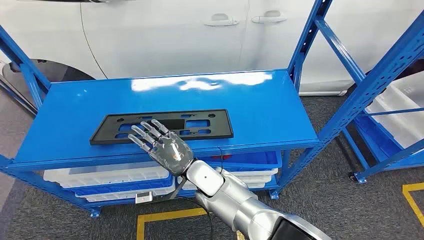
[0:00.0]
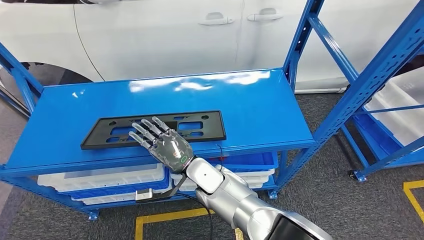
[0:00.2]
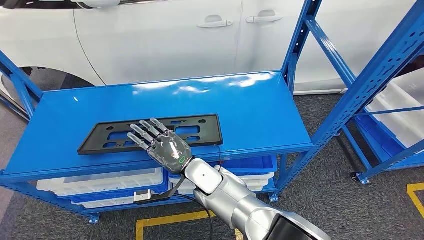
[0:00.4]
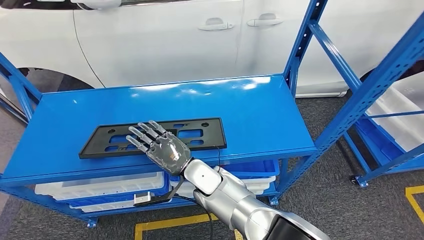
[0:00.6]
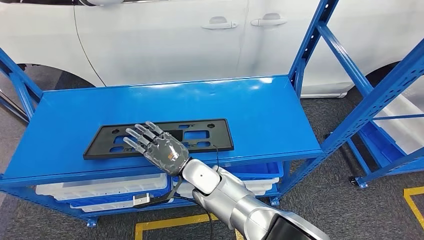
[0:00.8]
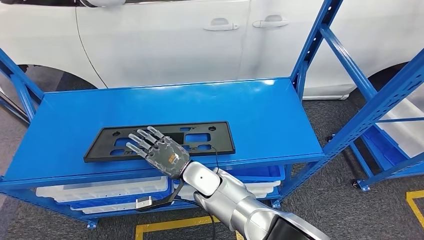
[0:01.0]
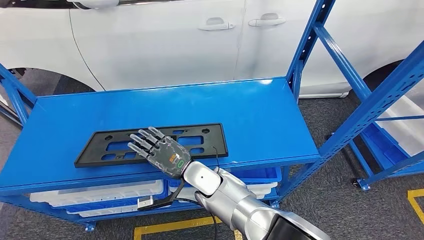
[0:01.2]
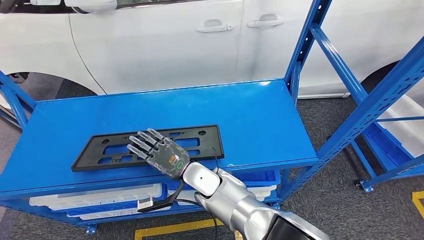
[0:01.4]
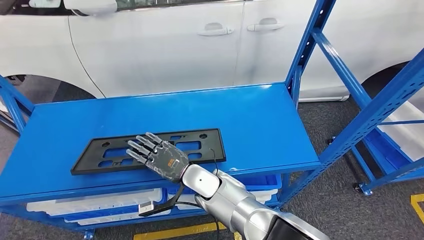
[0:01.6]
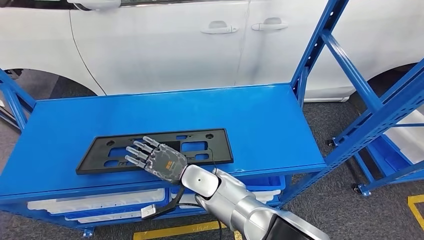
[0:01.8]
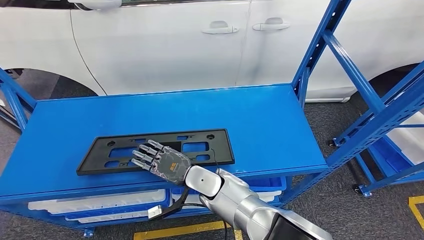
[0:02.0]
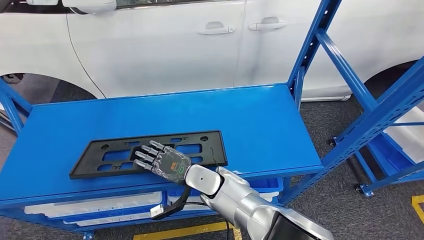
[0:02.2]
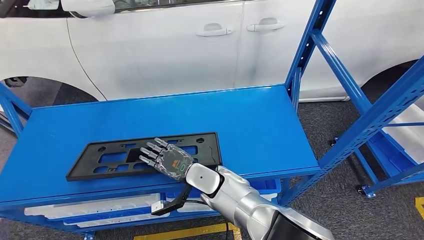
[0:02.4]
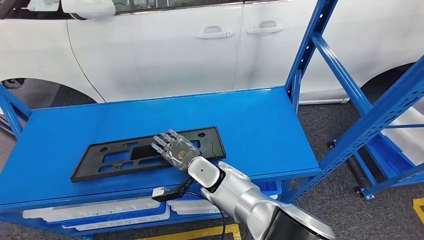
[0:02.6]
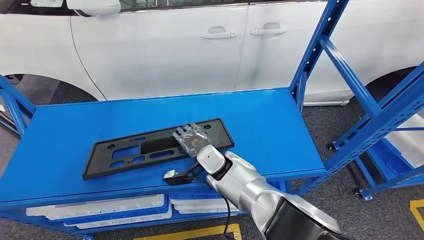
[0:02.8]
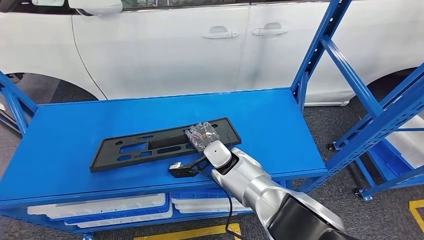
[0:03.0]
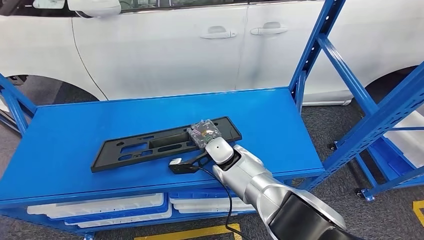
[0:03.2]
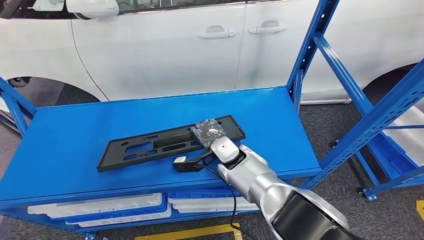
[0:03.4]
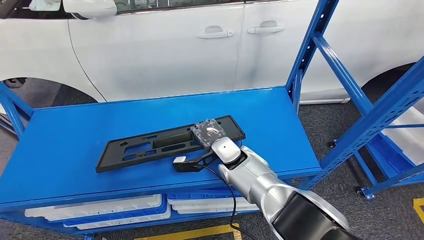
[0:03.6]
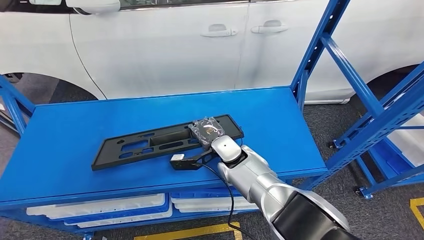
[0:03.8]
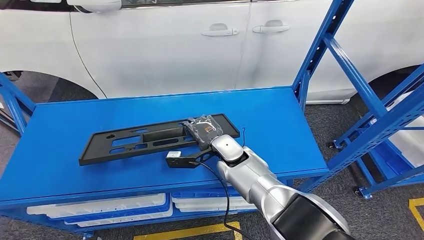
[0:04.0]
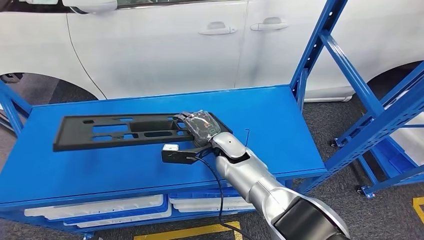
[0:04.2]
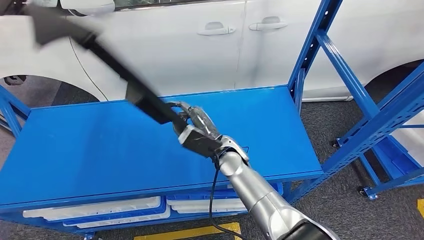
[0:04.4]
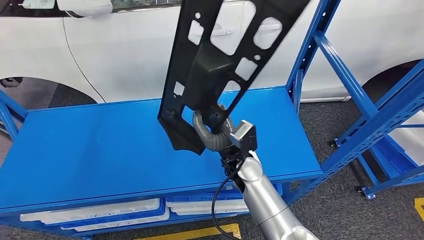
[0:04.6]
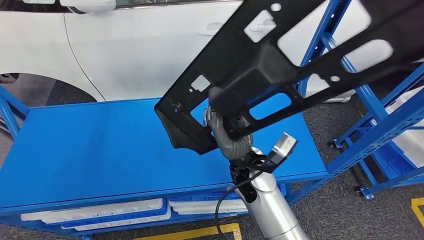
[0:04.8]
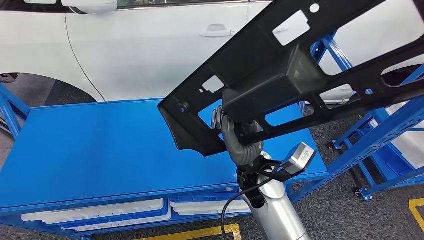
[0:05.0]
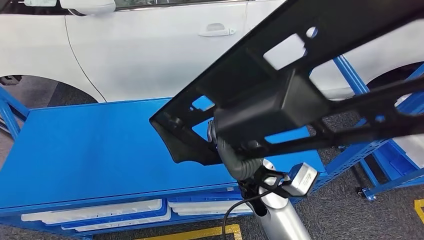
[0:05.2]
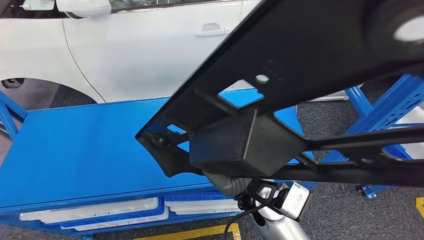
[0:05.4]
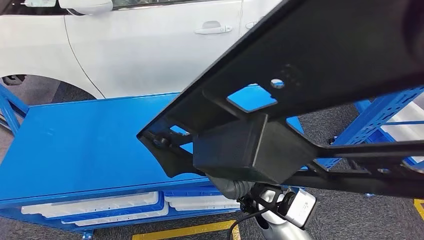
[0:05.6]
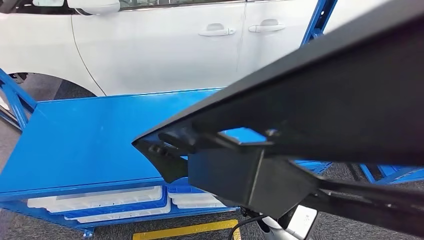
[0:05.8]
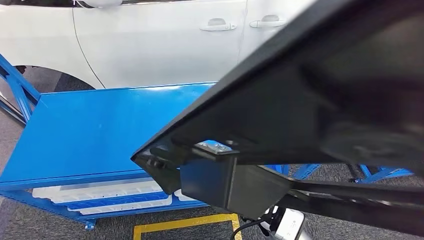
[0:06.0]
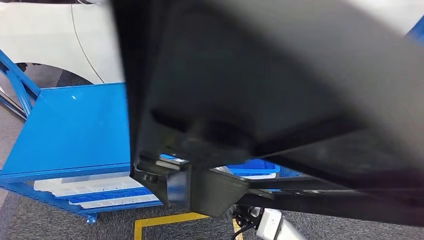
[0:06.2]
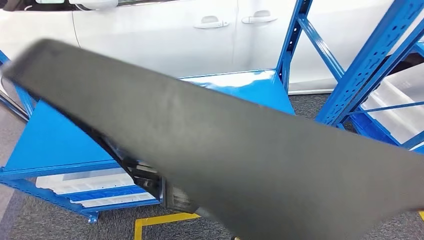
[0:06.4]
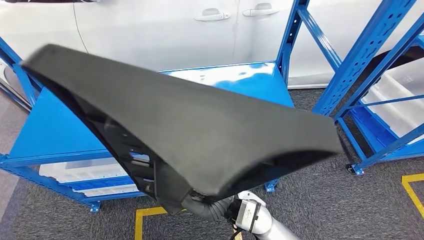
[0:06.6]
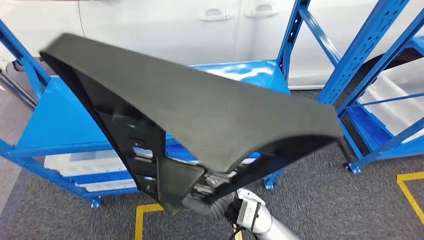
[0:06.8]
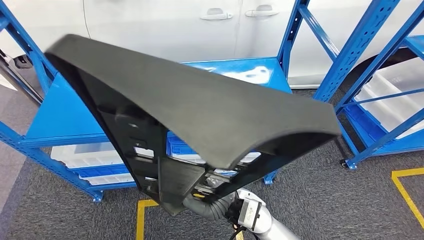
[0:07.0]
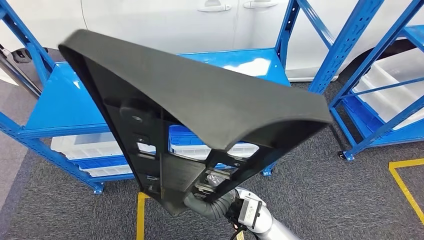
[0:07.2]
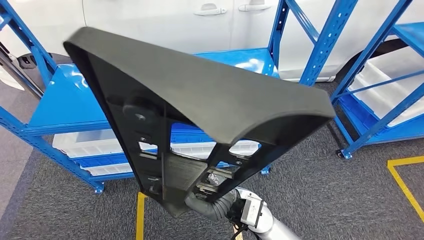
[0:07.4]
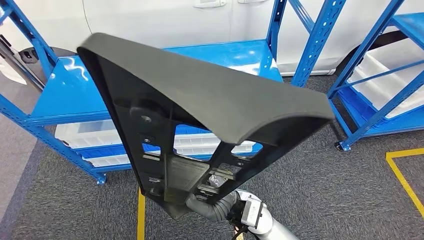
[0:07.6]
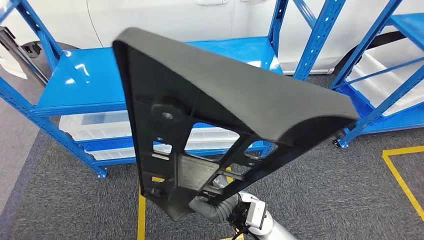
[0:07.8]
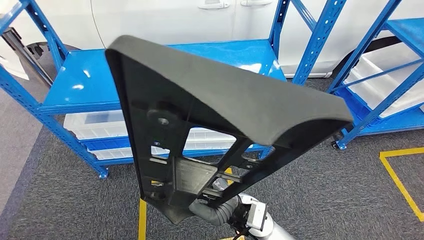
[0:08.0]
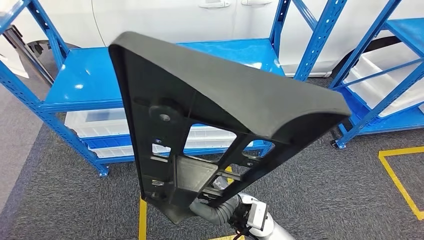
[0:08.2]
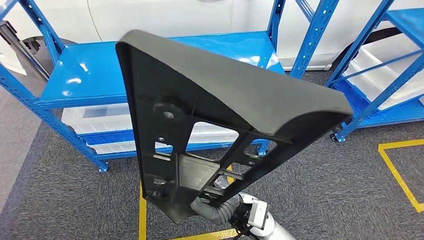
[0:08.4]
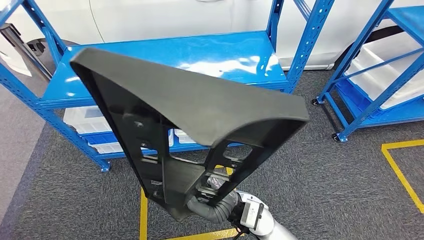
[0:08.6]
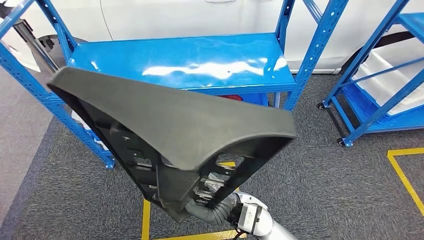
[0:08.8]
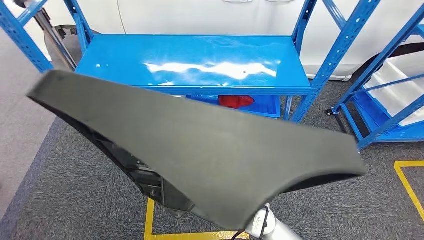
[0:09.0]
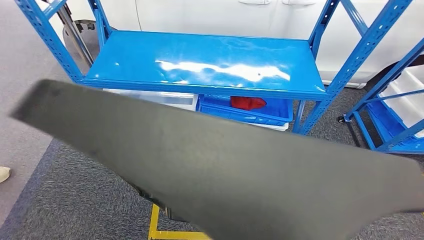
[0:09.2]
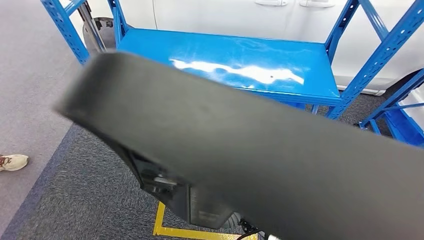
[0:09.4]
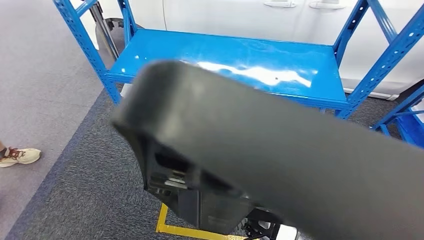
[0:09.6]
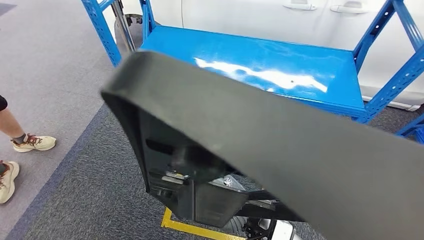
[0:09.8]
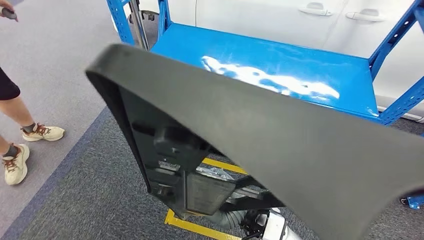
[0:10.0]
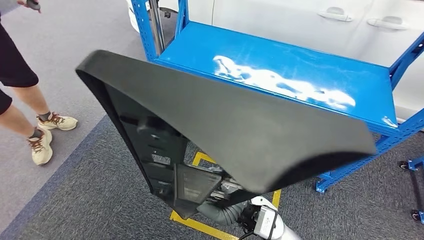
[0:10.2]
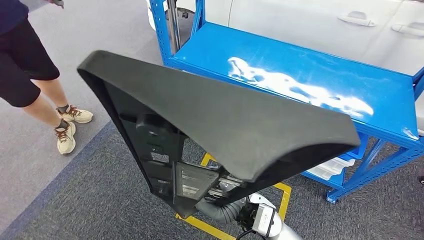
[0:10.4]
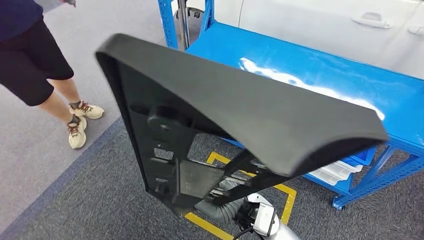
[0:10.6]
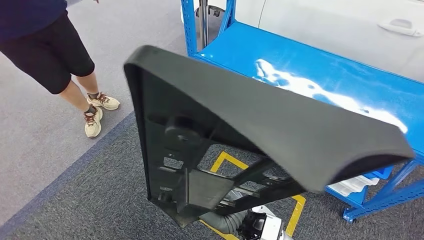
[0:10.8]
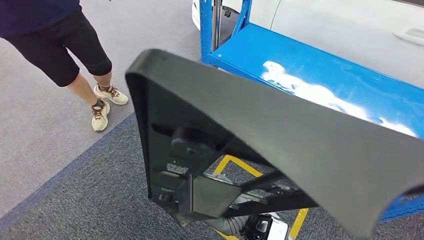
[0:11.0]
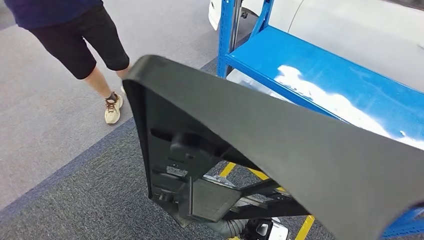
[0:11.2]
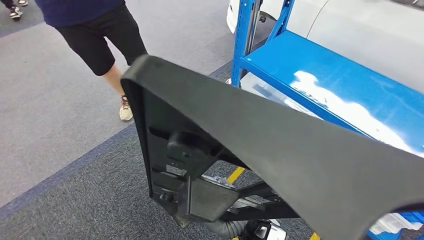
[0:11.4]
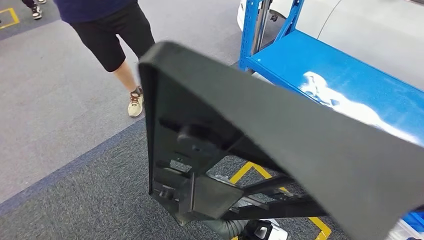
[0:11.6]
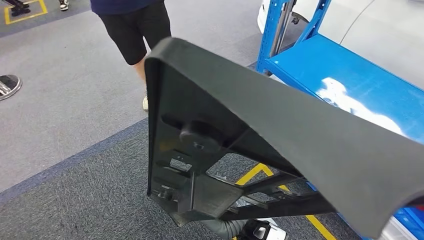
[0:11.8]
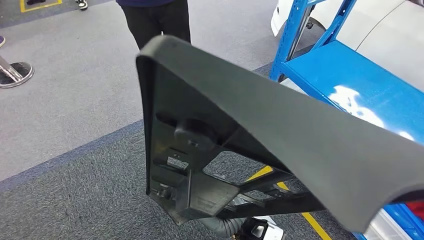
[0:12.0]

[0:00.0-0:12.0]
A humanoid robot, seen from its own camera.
Step, 0:00.0 to 0:05.6: Pick up the large material from the shelf.

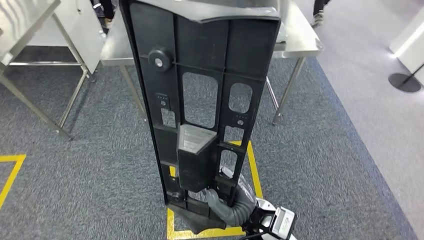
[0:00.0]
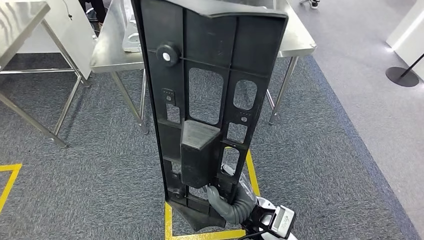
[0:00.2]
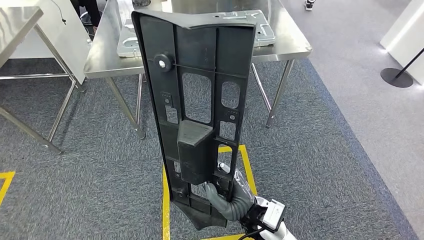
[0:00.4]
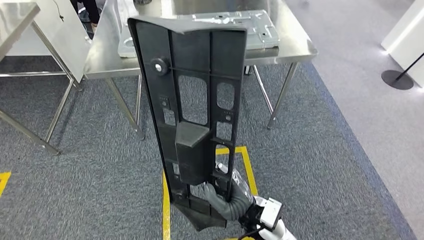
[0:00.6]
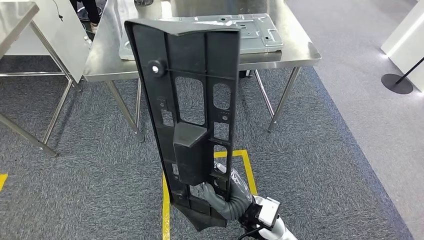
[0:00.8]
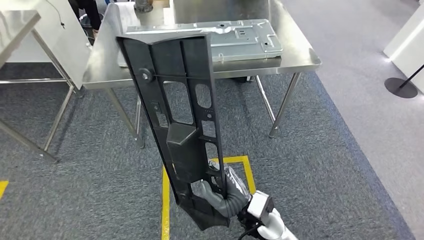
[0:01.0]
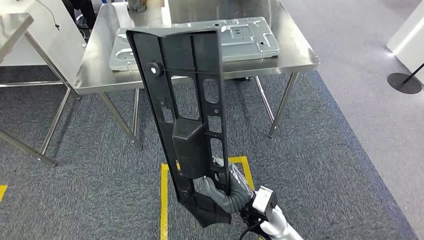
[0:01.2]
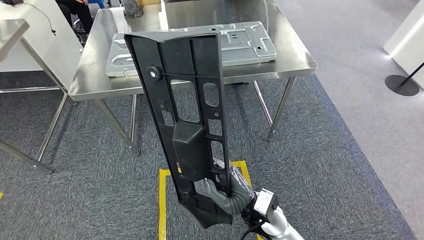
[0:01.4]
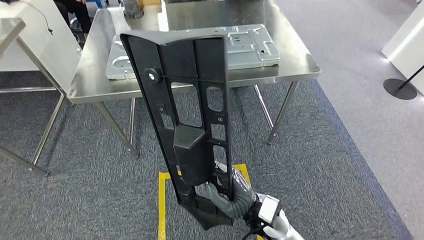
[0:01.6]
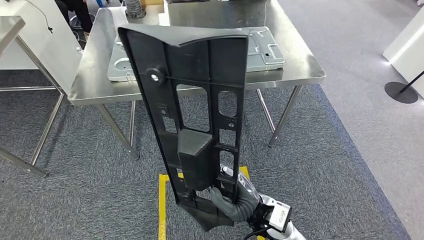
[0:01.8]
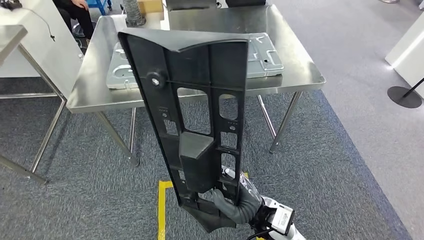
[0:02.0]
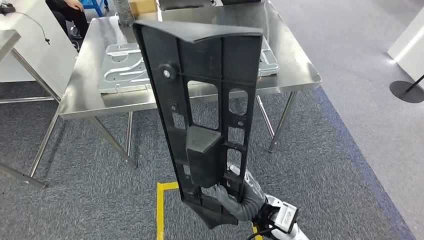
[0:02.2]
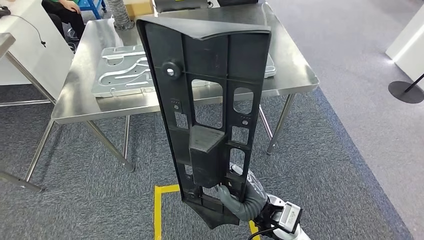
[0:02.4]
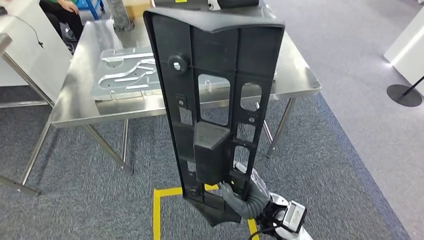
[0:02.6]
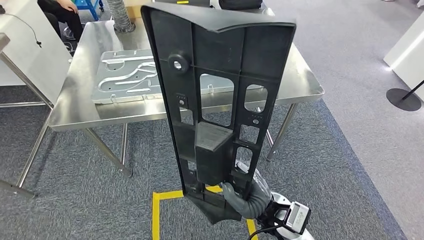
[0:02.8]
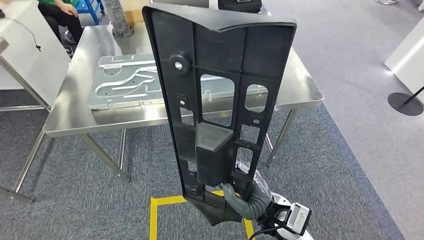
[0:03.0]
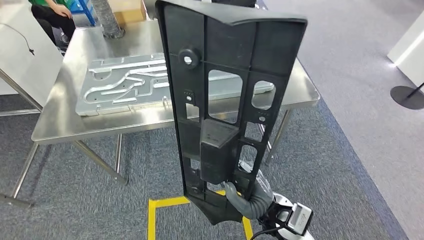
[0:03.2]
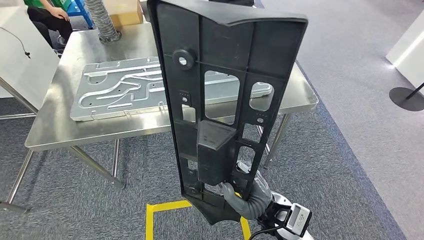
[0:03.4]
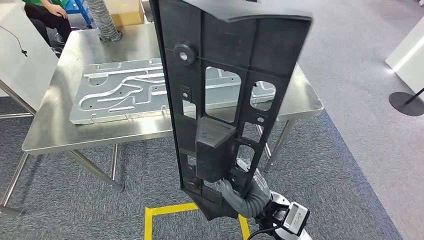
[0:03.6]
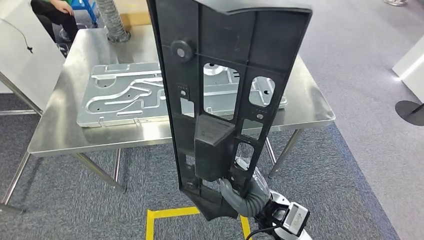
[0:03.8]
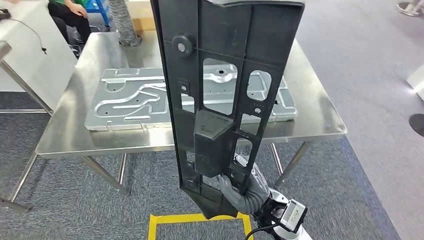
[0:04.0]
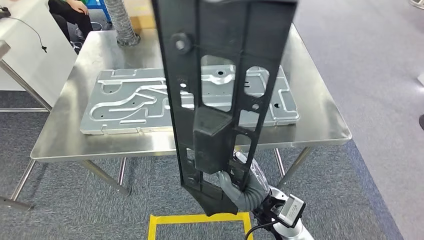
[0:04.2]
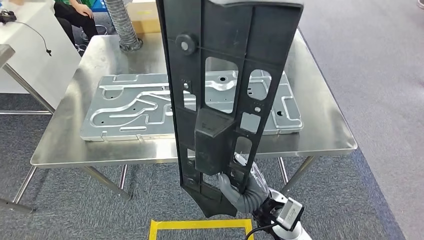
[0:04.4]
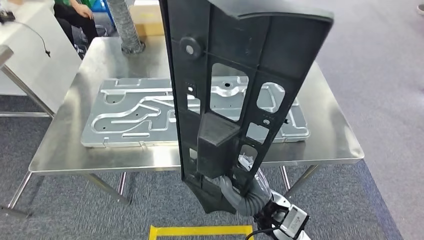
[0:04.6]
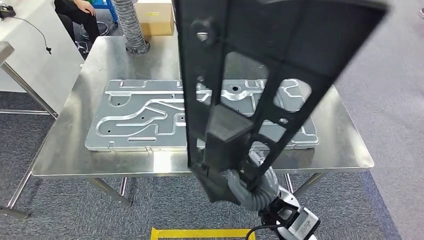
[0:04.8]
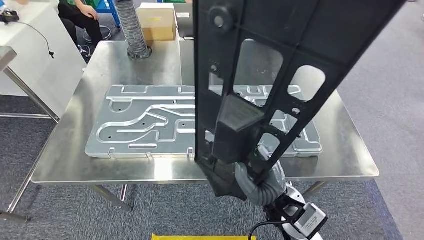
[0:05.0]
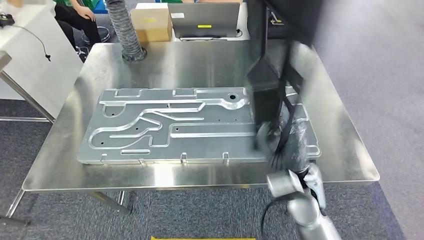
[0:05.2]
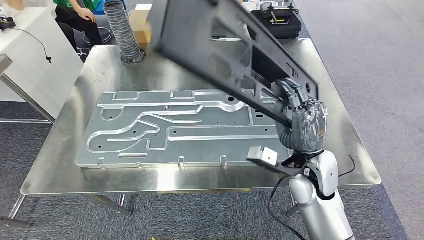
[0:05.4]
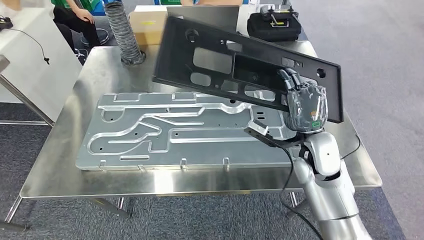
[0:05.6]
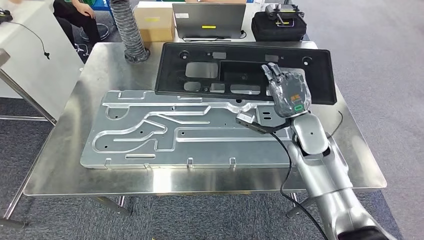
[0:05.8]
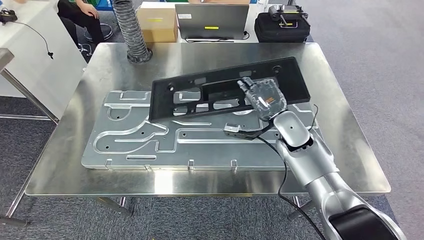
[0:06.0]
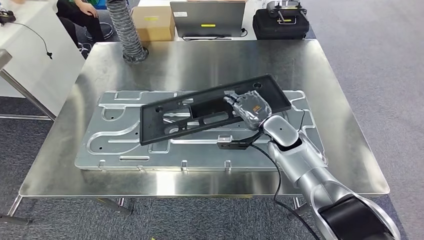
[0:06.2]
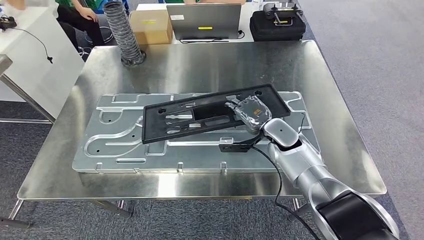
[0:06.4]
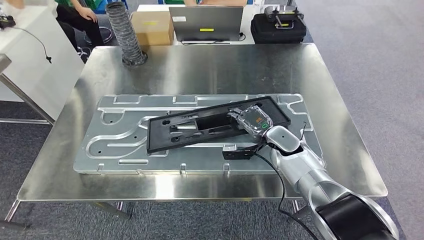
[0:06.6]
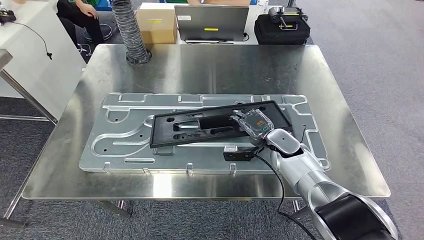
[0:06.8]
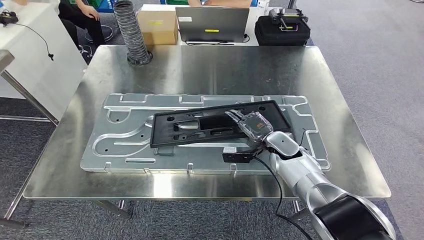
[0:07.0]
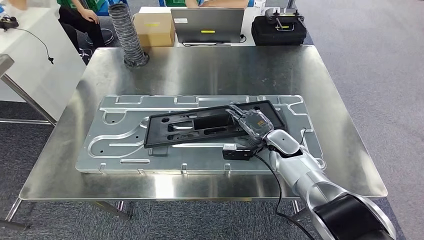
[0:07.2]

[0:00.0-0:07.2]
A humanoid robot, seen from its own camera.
Step, 0:00.0 to 0:04.4: Move the large material to the workbench.
